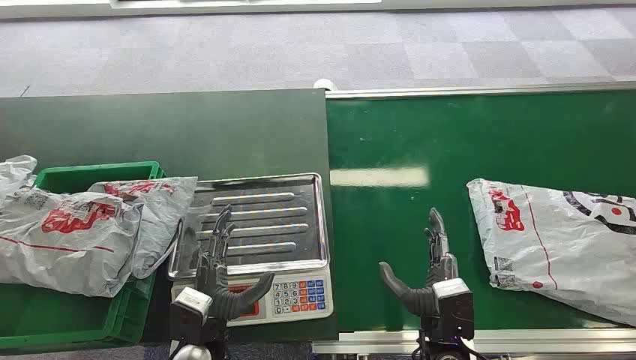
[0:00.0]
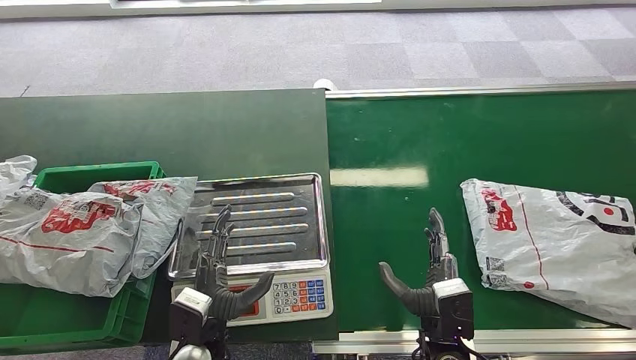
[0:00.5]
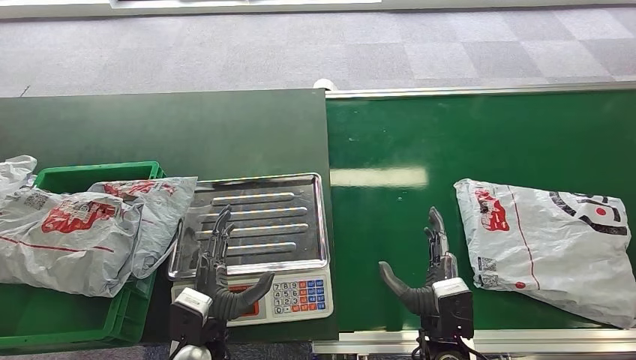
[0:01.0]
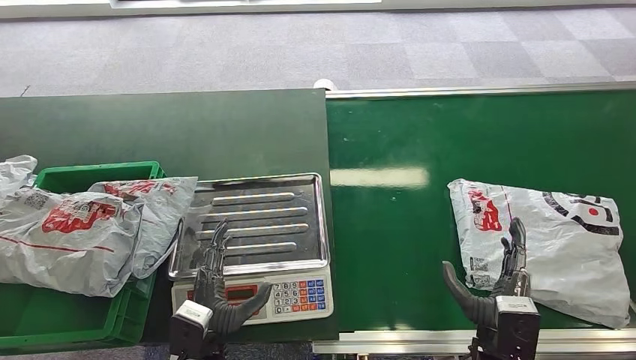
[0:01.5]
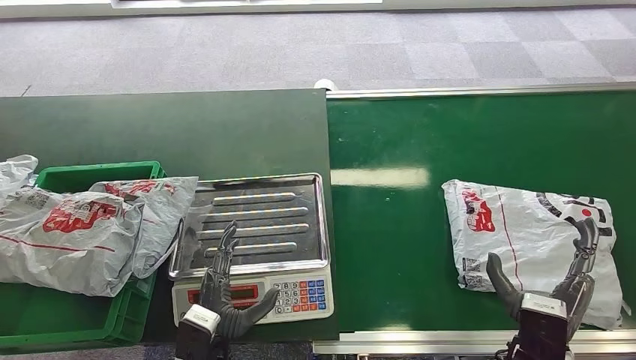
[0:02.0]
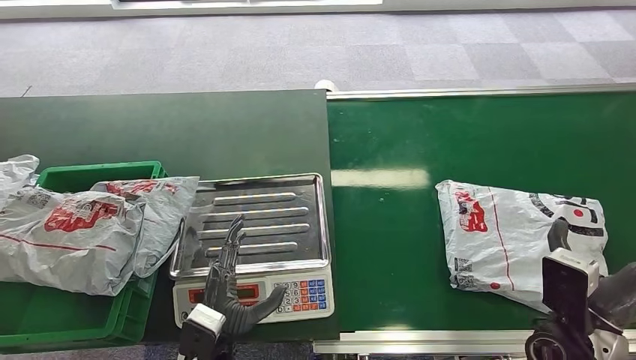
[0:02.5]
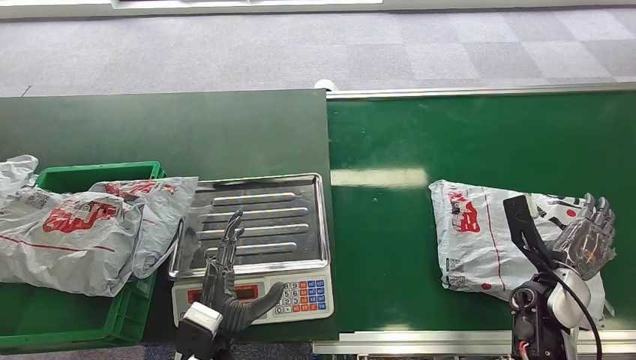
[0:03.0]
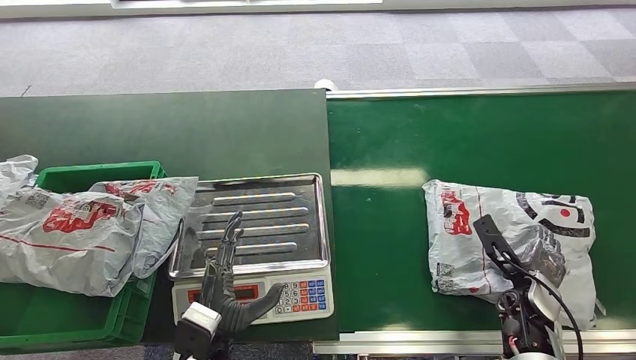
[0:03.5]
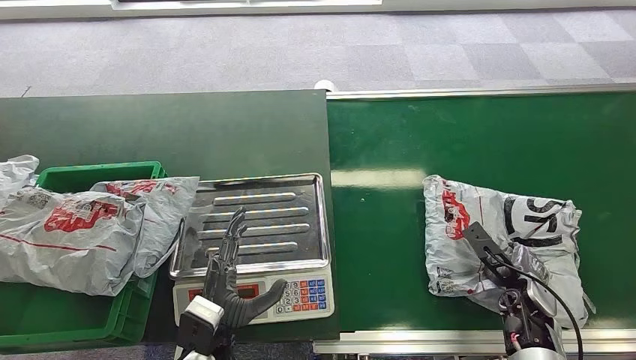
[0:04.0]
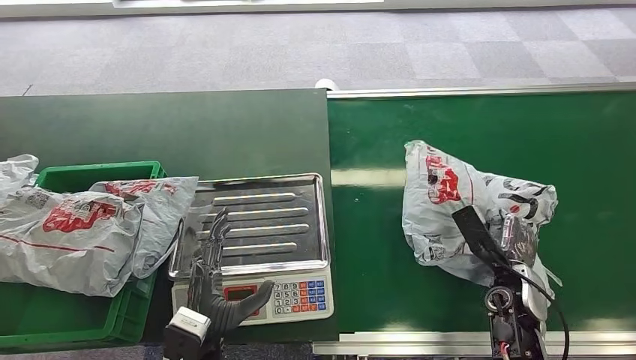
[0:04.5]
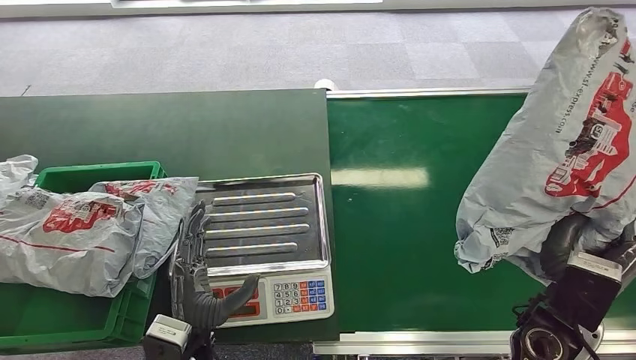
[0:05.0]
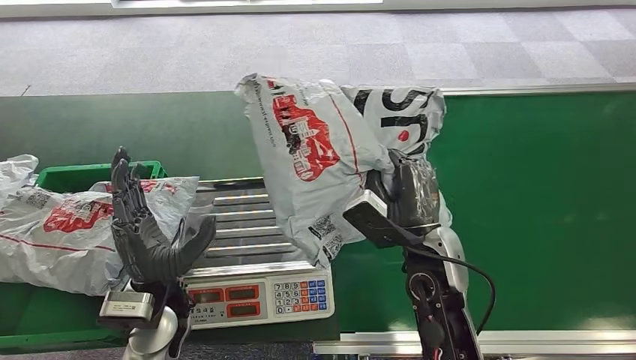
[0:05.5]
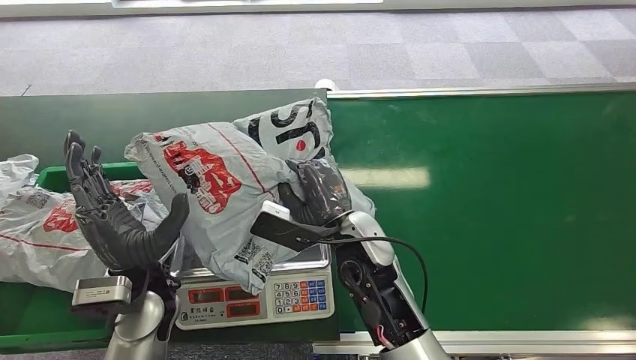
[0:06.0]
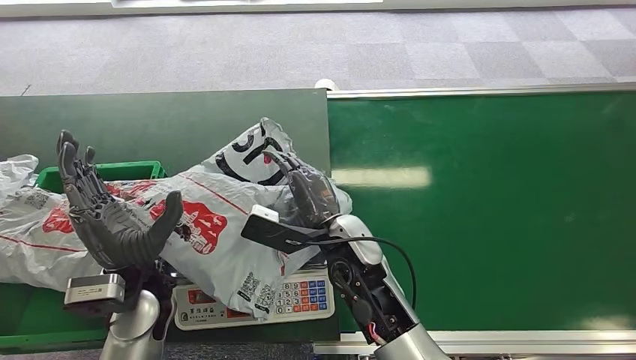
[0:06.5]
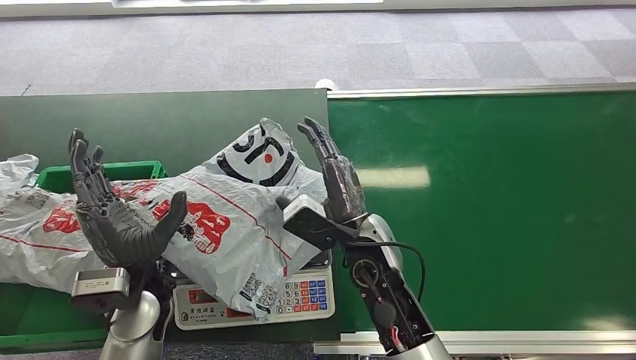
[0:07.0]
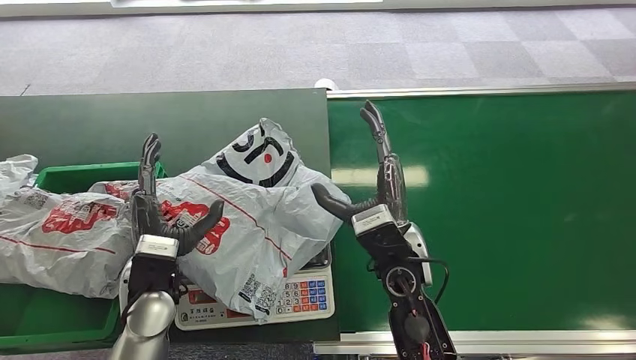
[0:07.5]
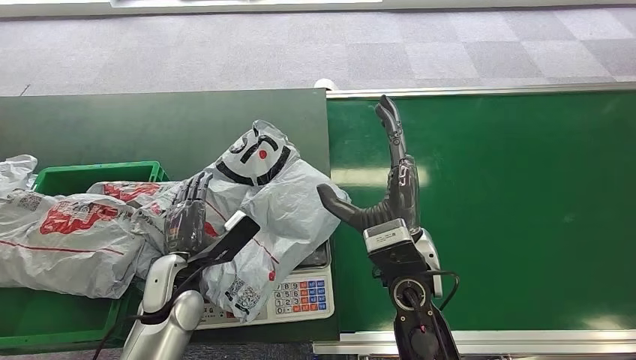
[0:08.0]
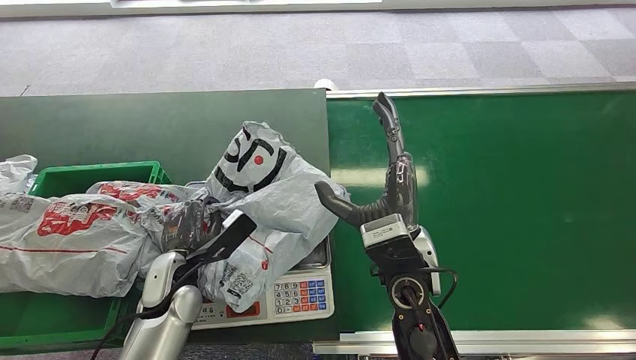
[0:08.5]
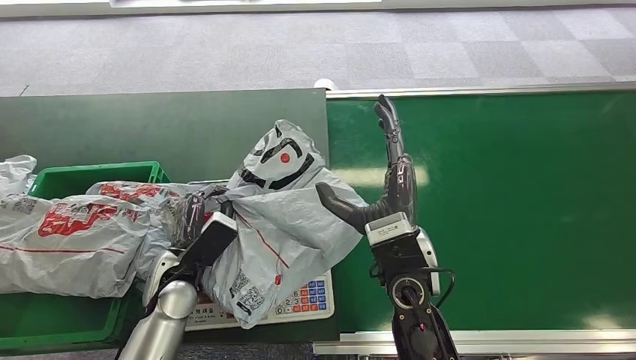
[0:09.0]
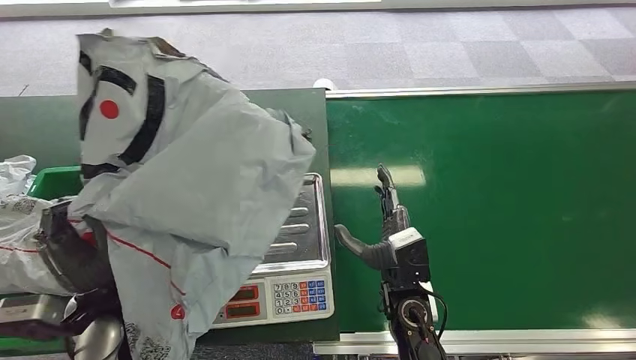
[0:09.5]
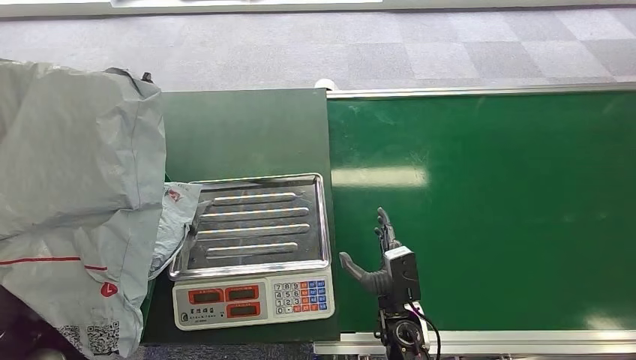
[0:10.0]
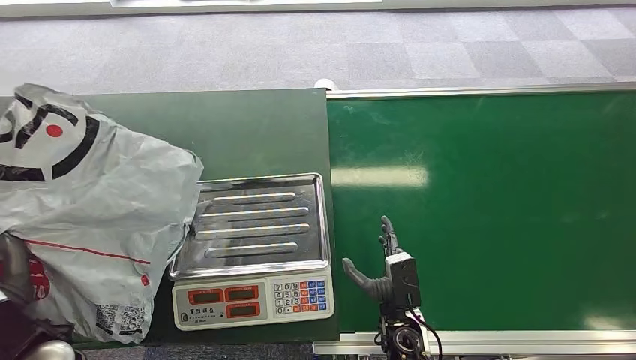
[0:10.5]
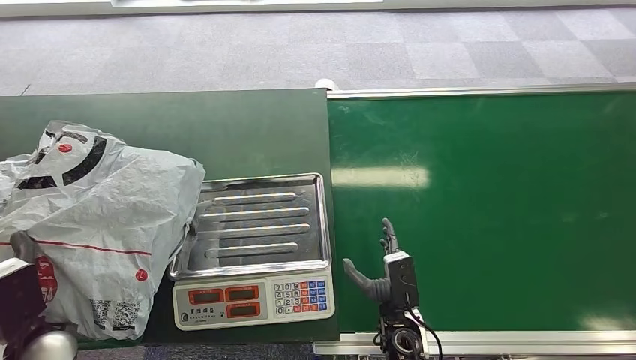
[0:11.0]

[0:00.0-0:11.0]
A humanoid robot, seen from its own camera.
Step, 0:00.0 to 0:05.0: Pick up the package from the conveyor belt.
Step, 0:05.5 to 0:06.5: Place the package onto the inbound machine.
Step, 0:07.0 to 0:09.0: Pick up the package from the inbound machine.
Step, 0:09.5 to 0:11.0: Place the package into the parcel locker.
0:02.0 to 0:03.5: The right hand goes about 15 cm forward, to the right and downward.
0:07.5 to 0:09.0: The left hand shifts approximately 5 cm downward.

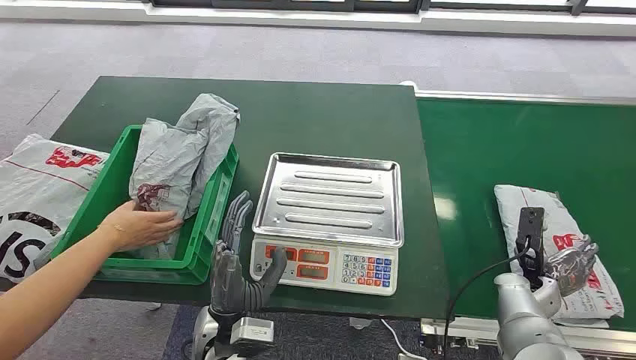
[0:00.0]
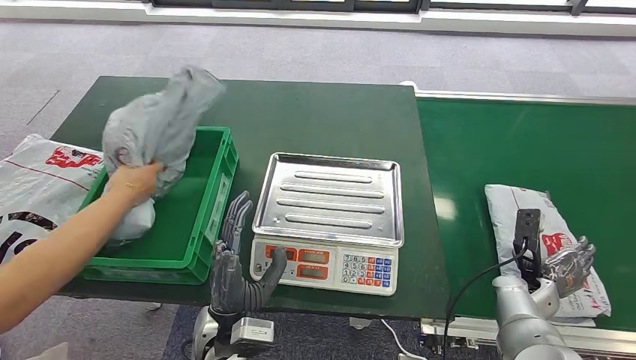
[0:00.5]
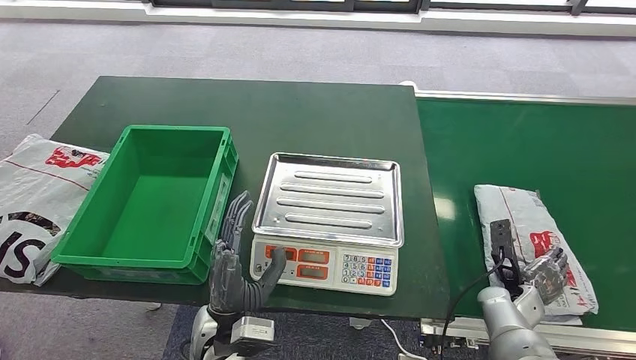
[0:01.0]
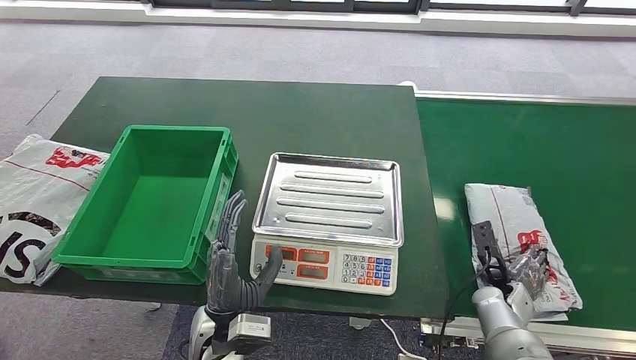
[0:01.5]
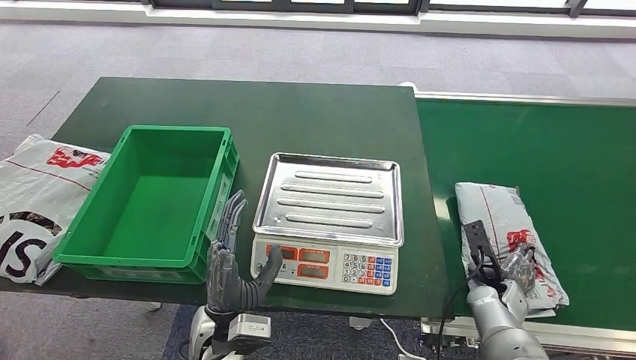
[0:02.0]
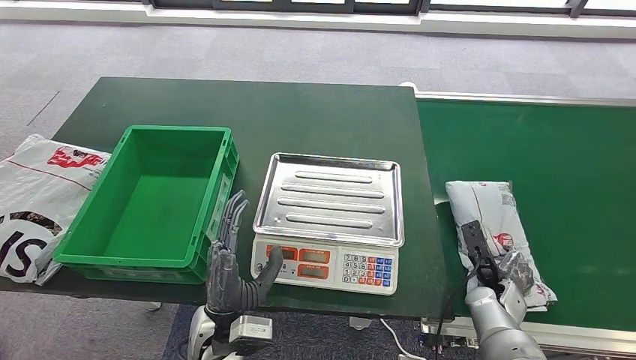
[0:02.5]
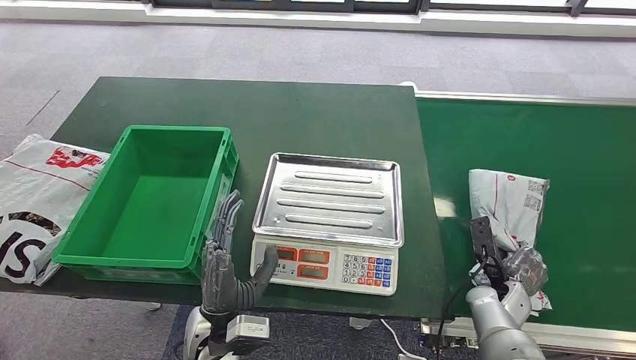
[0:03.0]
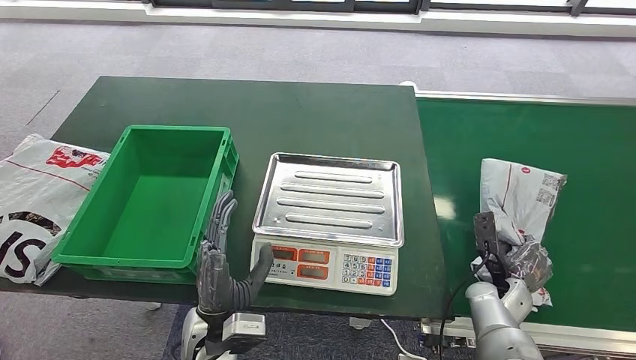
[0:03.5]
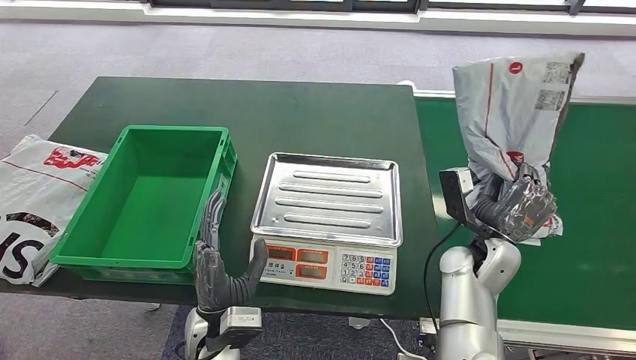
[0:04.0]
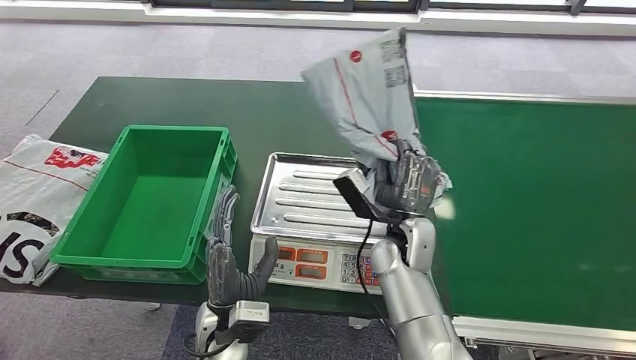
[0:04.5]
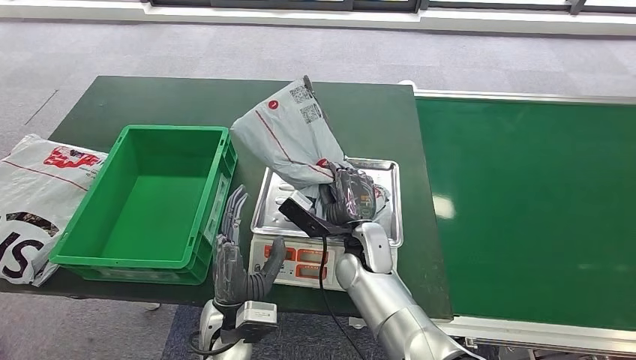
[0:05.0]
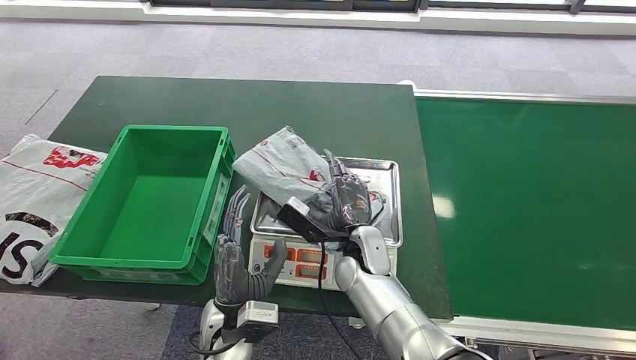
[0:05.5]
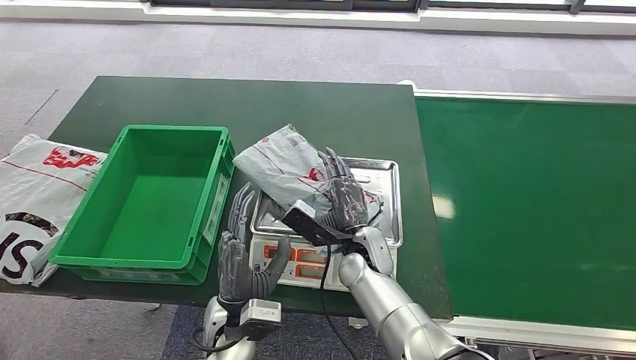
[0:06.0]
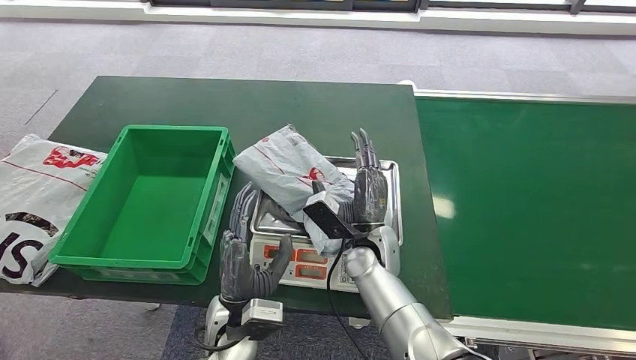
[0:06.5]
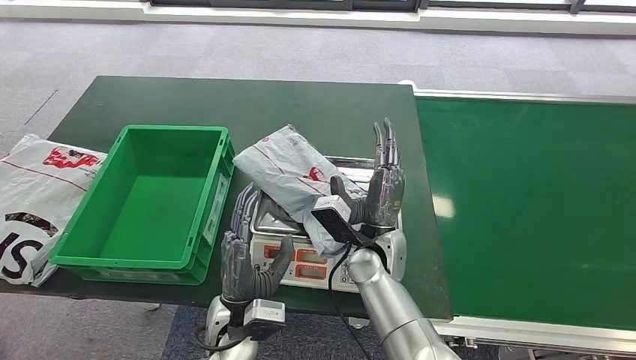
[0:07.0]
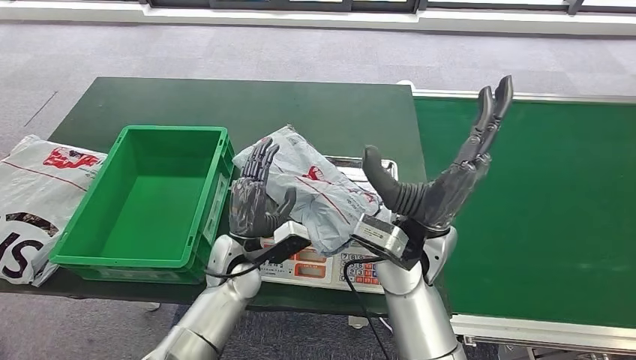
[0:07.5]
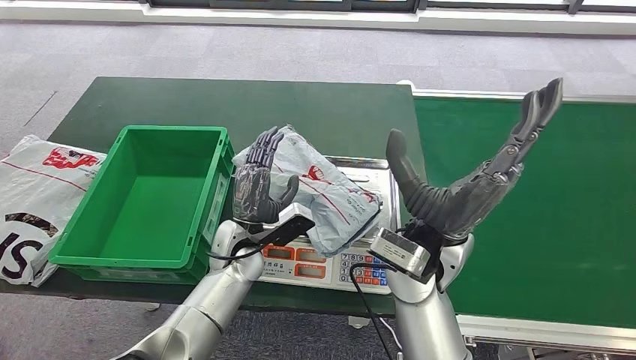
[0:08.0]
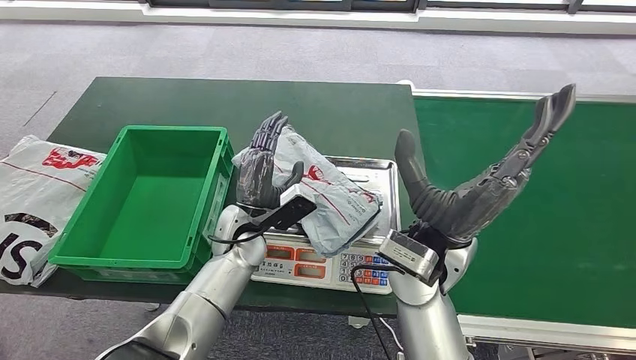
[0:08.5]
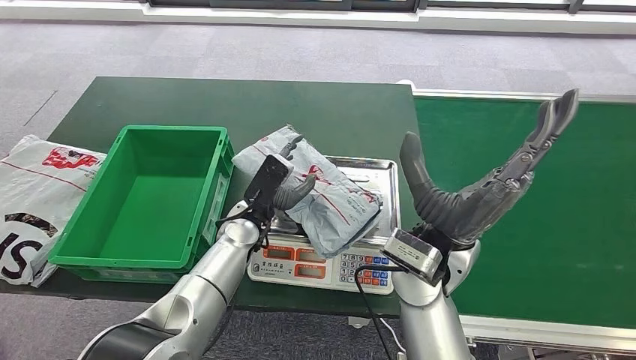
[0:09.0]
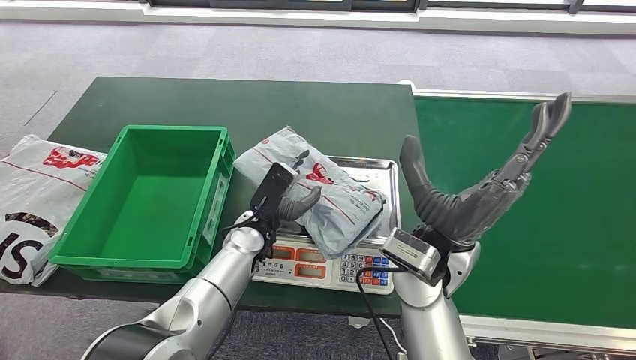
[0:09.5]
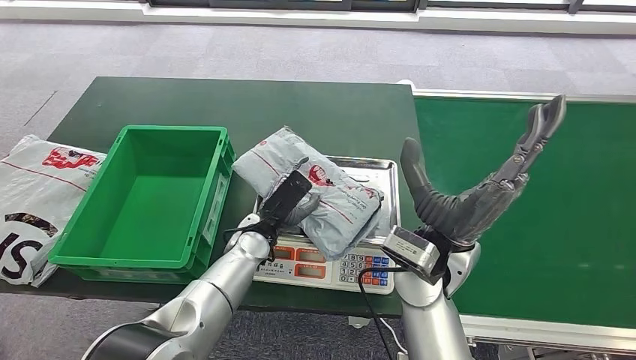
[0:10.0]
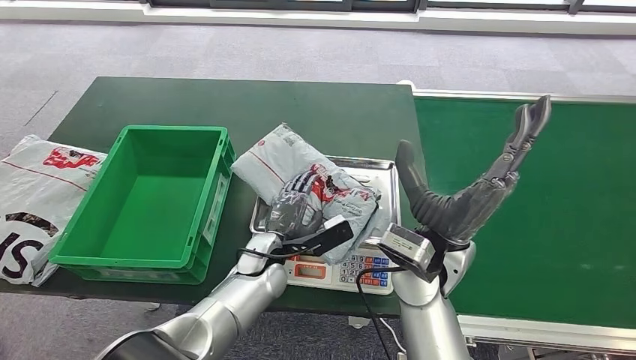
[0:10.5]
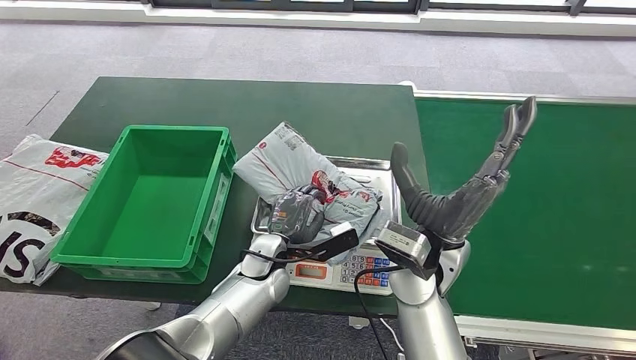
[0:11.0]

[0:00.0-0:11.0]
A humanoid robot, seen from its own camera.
Step, 0:00.0 to 0:03.5: Pick up the package from the conveyor belt.
Step, 0:04.0 to 0:06.5: Place the package onto the inbound machine.
0:05.5 to 0:07.5: The right hand shifts some 15 cm upward. The left hand heads forward, covering roughly 10 cm.
0:07.5 to 0:09.0: The left hand shifts approximately 5 cm forward.
